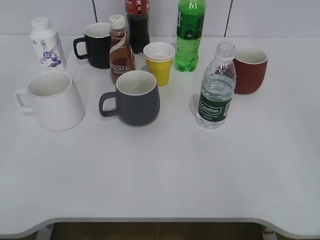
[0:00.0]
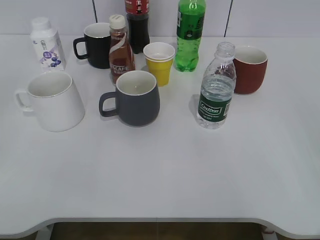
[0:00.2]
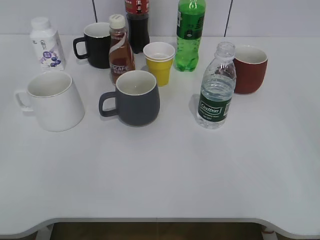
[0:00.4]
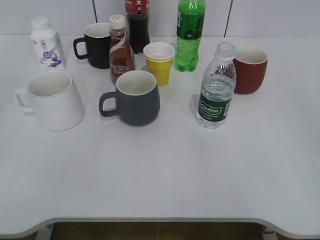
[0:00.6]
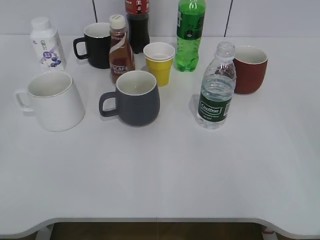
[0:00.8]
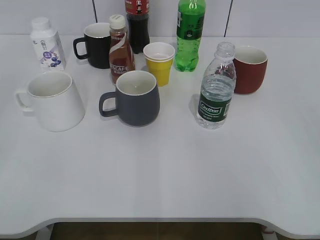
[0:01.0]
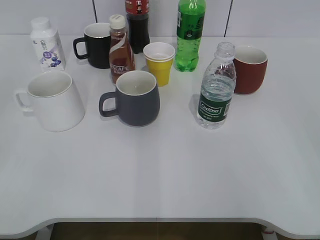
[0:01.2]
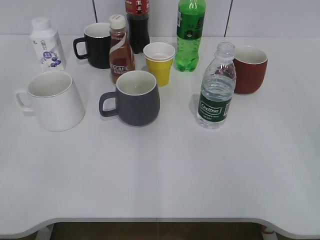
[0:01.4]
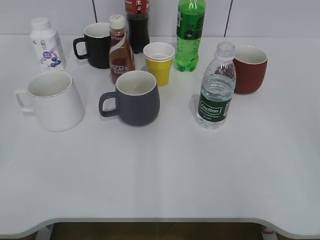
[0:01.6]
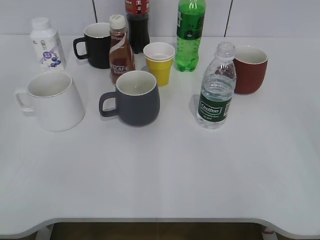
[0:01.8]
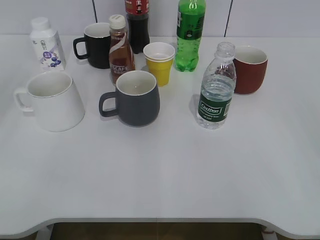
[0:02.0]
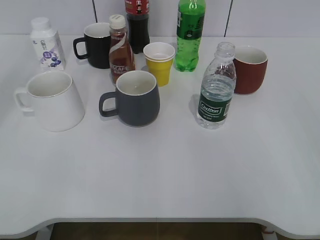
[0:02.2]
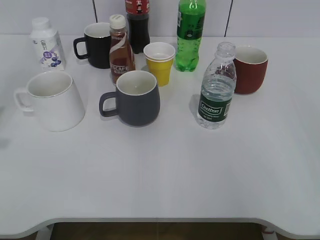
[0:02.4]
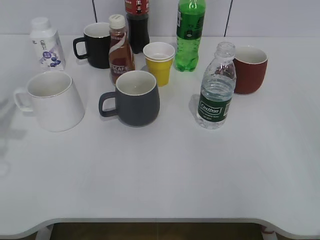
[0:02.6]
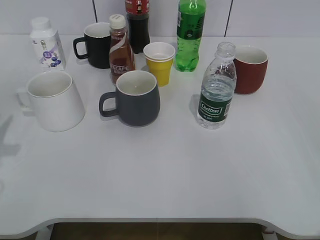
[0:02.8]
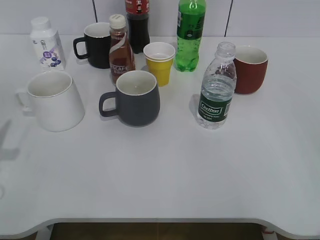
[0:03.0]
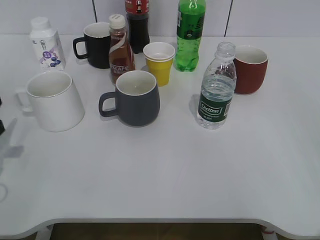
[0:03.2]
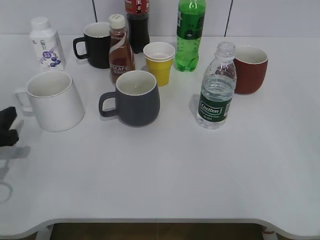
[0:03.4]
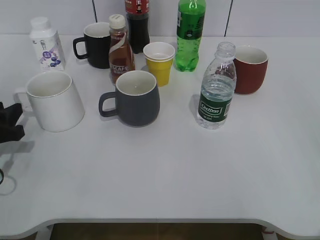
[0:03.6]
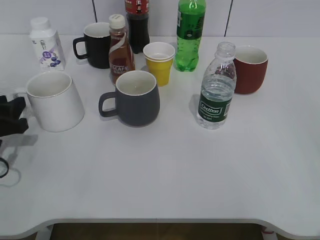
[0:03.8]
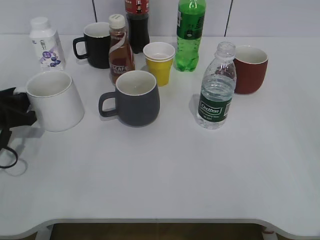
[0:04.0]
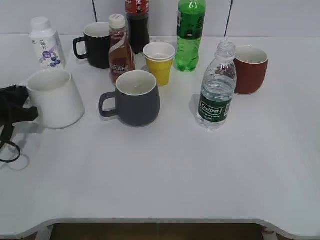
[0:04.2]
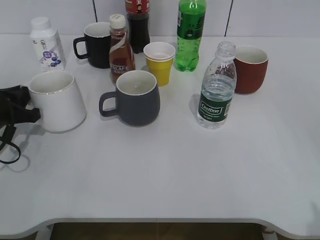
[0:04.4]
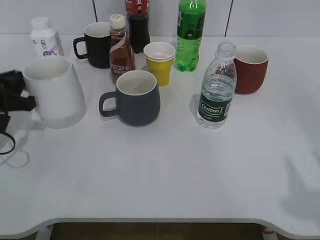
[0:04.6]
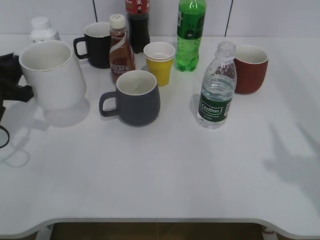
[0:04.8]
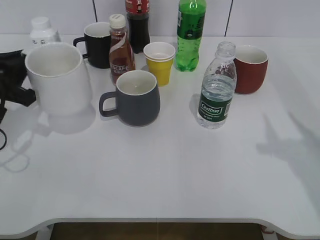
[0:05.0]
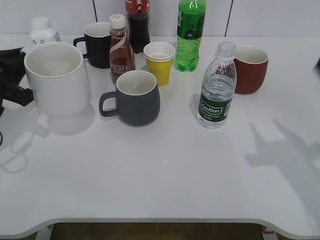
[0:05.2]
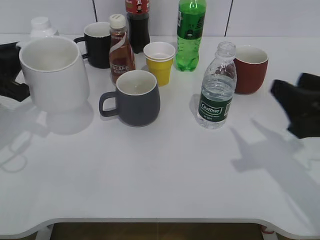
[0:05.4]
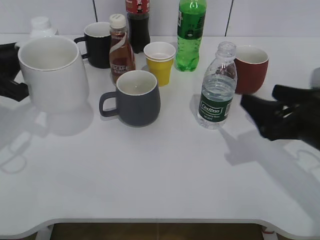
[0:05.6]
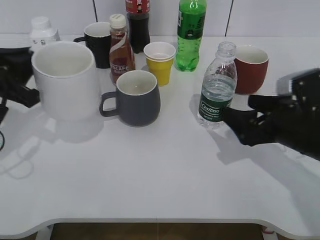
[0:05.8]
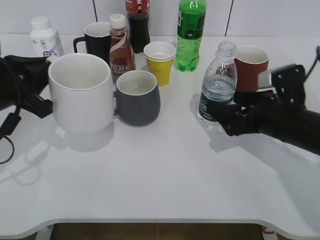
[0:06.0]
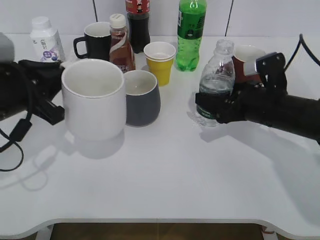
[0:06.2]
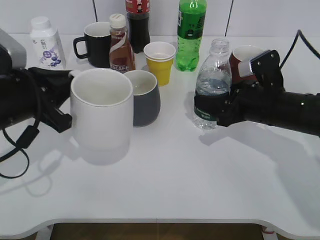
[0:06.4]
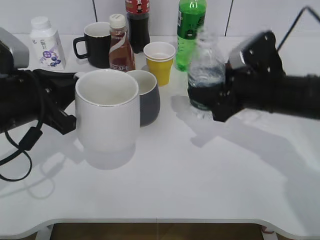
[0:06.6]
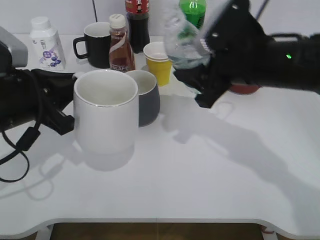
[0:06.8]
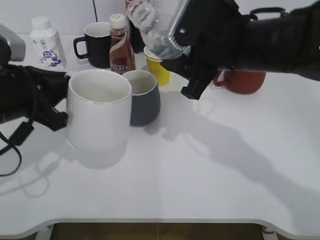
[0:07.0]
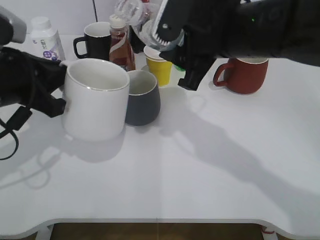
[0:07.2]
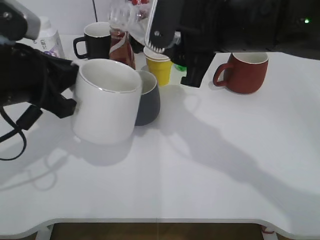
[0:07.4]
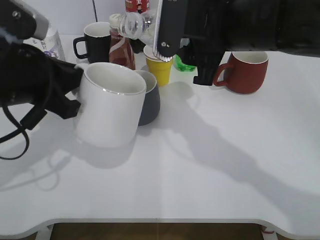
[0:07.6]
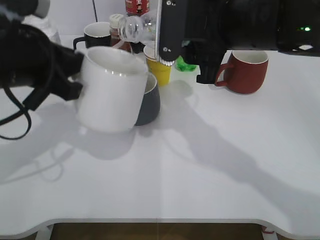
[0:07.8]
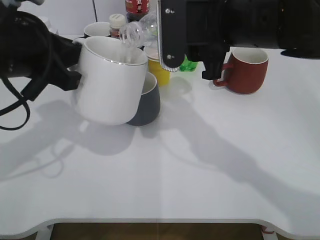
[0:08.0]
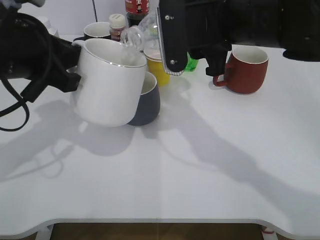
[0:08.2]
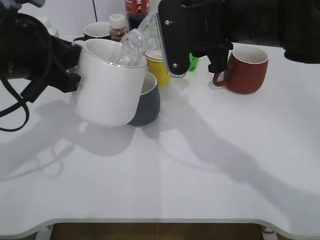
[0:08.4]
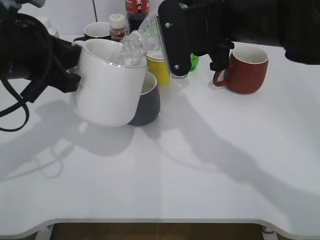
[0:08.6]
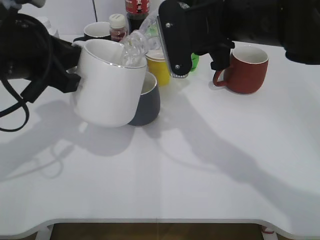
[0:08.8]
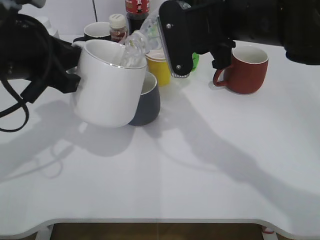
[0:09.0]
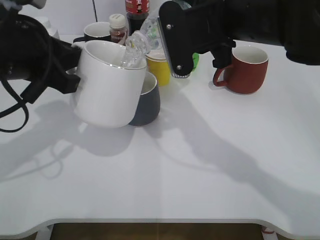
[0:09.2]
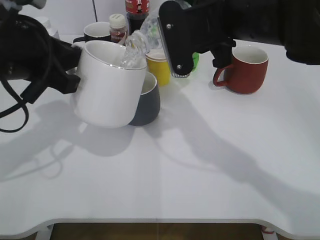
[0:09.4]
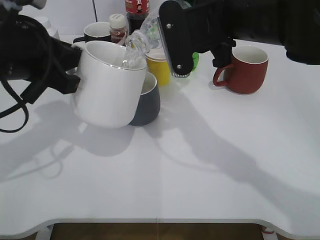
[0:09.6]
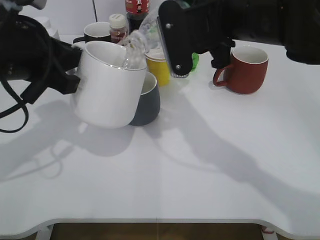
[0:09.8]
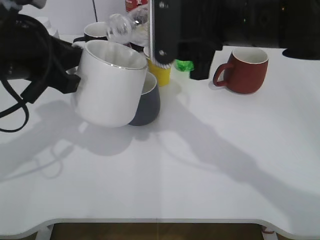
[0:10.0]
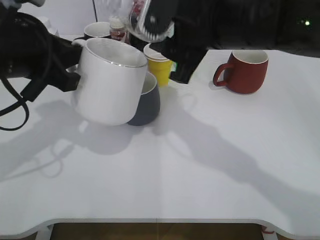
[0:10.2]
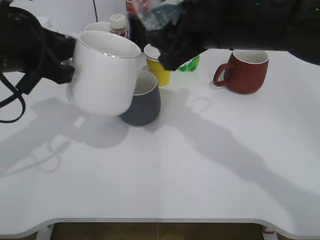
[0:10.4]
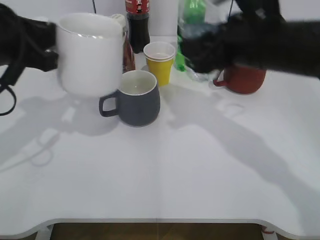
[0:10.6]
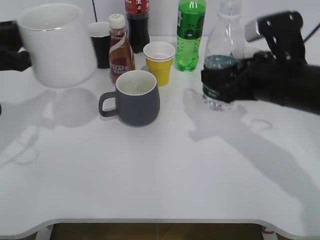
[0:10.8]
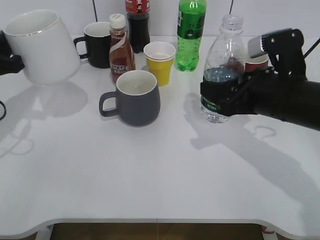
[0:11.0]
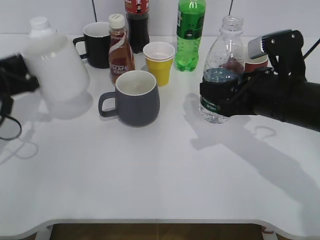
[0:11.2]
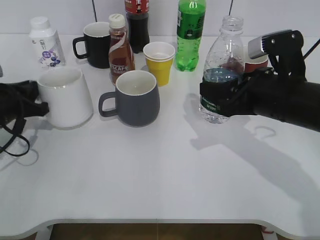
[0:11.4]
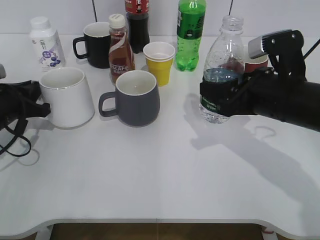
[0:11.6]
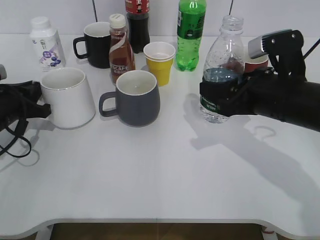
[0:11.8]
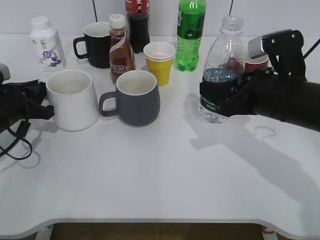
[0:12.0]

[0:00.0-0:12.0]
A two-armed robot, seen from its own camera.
Step, 0:01.8 to 0:04.2: Grasp the white cup with left gripper.
Step, 0:04.4 to 0:04.8: Lift the white cup with left gripper.
Step, 0:05.2 to 0:06.2: Grasp the bottle with water with right gripper.
Step, 0:06.4 to 0:10.0: Pour the water from bottle to cup with right gripper.
0:03.0 to 0:04.4: The left gripper shifts roughly 10 cm forward and downward.
0:04.4 to 0:06.0: The right gripper goes roughly 30 cm forward and downward, and opens its fingers. The left gripper moves upward and to the right, roughly 10 cm.
0:06.0 to 0:07.6: The right gripper heads upward and to the left, covering some 20 cm, and closes up, while the left gripper goes about 5 cm to the right.
0:10.4 to 0:12.0: The left gripper moves downward and to the left, roughly 20 cm. The right gripper travels to the right and downward by approximately 15 cm.

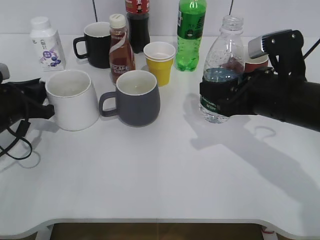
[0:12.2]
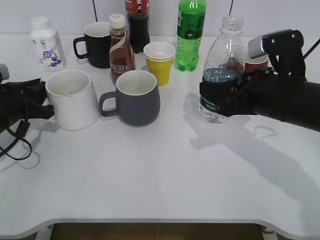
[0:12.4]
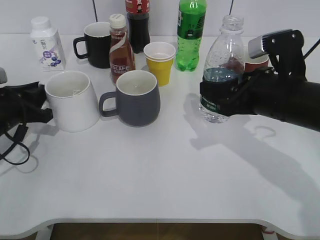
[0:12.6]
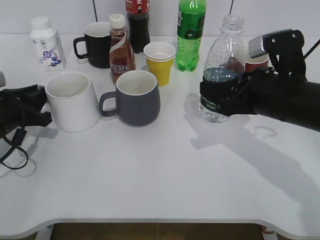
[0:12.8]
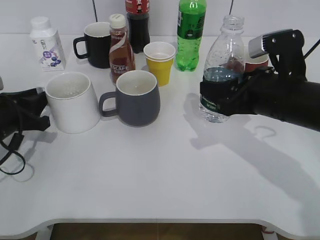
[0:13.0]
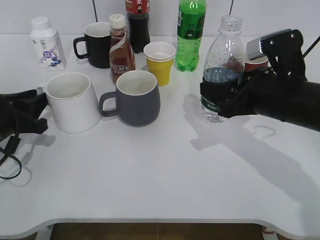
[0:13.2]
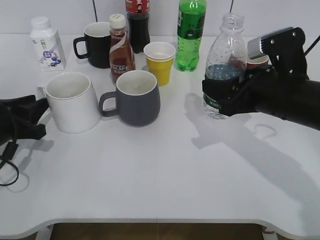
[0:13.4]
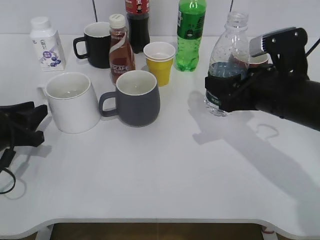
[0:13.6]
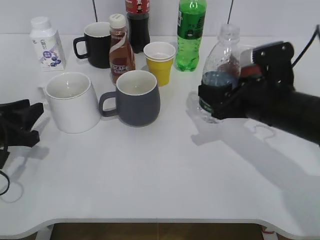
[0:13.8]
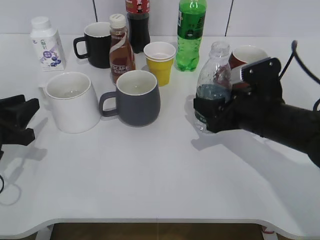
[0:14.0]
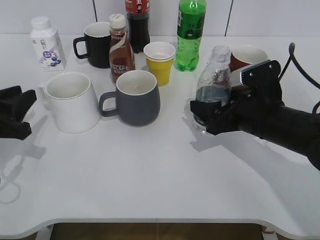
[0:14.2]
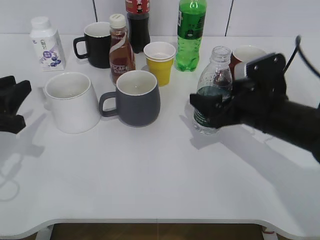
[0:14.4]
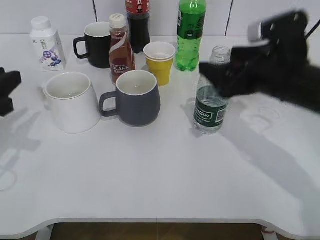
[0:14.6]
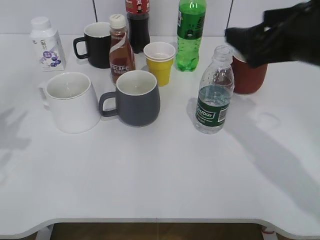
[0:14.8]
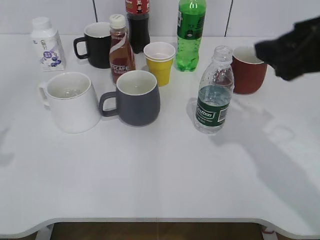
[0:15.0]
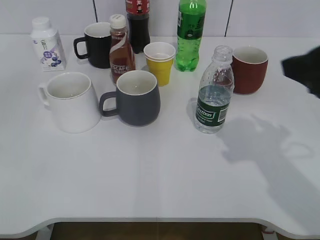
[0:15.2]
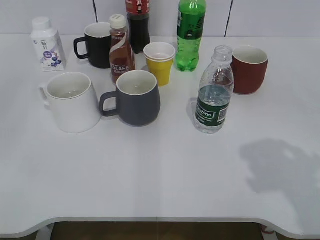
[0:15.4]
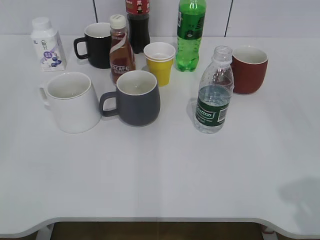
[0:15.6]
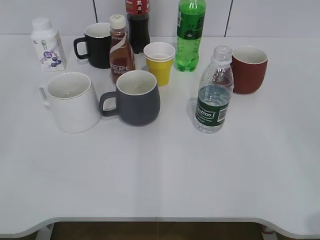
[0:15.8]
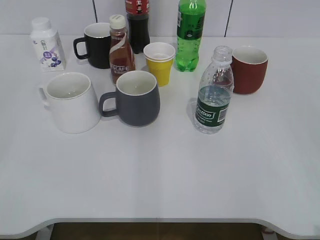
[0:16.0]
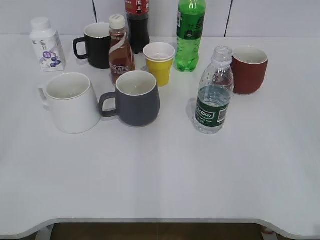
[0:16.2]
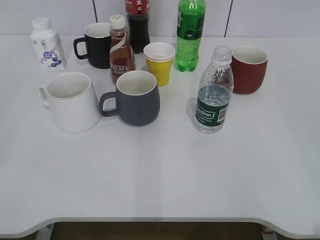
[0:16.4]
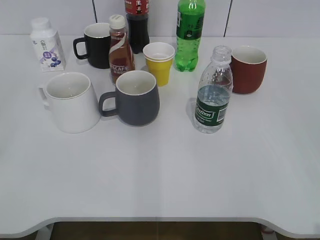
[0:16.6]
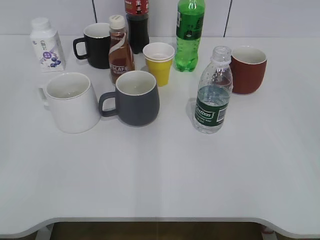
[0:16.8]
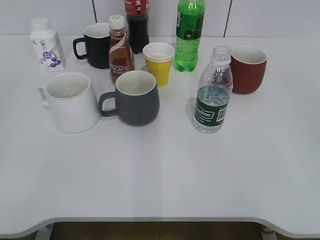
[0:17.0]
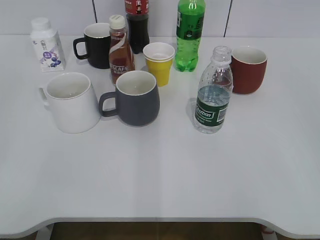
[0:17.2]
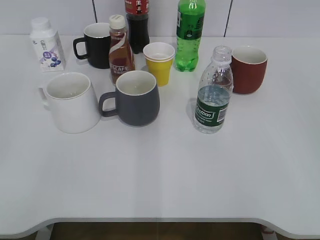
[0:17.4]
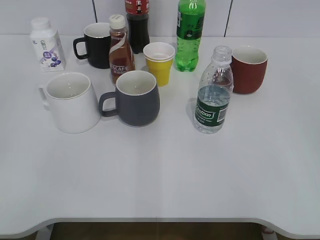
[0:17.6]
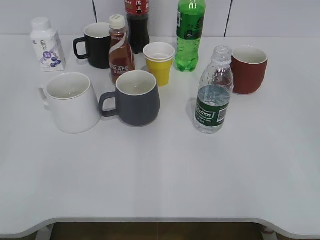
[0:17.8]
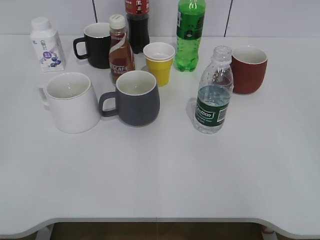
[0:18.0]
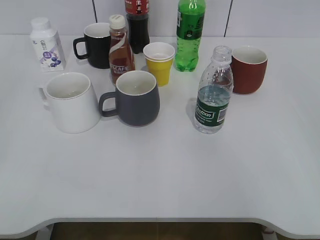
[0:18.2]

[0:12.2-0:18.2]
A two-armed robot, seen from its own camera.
Step, 0:13.2 to 0:14.4: Place the water bottle on the table with right gripper.
0:12.2 to 0:13.8: The left gripper travels backward by approximately 5 cm.
0:13.8 to 0:15.2: Both grippers move upward and backward, some 20 cm. The right gripper opens its fingers, while the left gripper opens.
0:15.2 to 0:16.6: The left gripper is displaced backward by roughly 10 cm. Meanwhile the right gripper is displaced backward and to the right by some 20 cm.

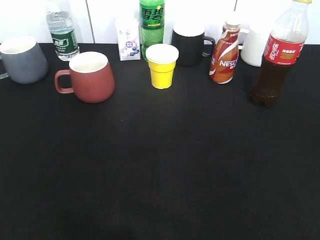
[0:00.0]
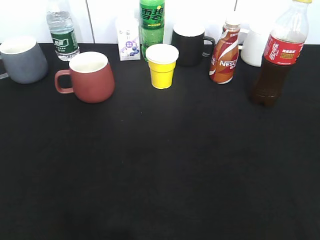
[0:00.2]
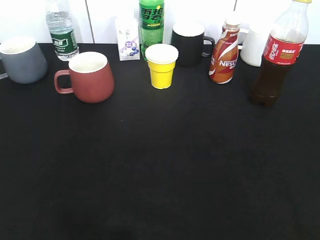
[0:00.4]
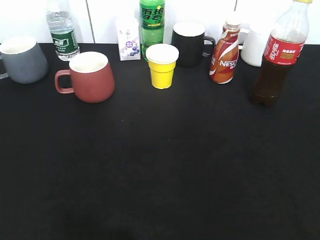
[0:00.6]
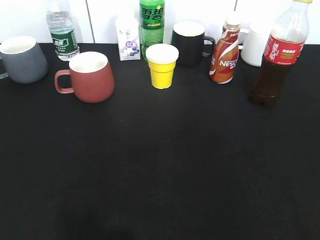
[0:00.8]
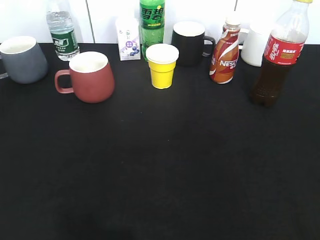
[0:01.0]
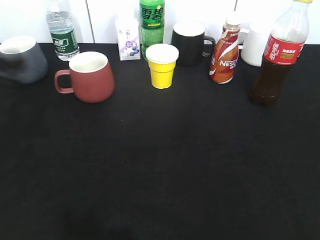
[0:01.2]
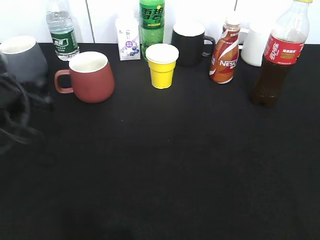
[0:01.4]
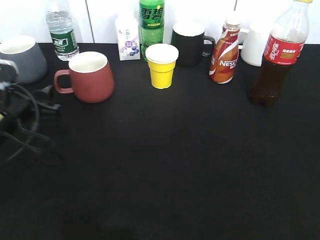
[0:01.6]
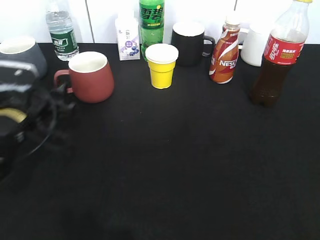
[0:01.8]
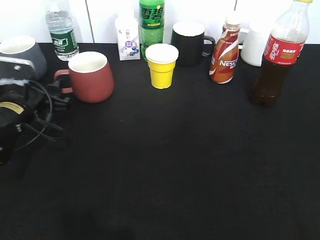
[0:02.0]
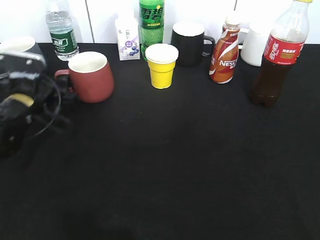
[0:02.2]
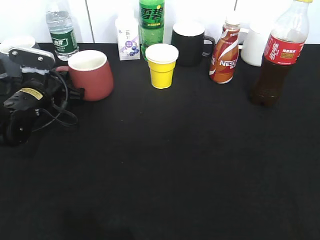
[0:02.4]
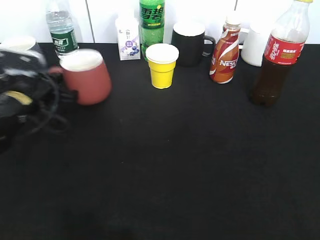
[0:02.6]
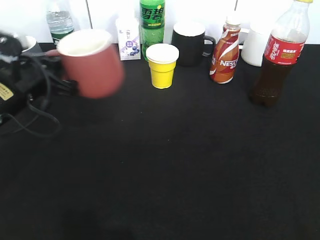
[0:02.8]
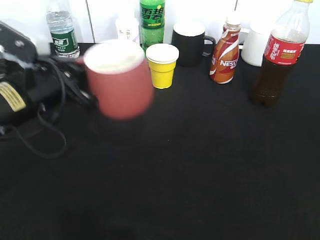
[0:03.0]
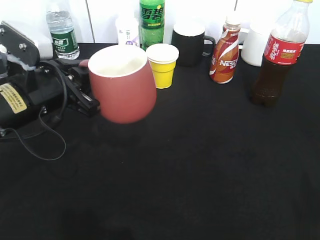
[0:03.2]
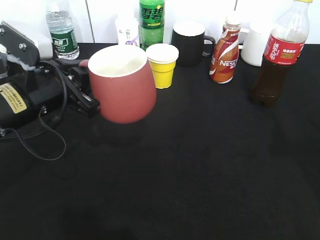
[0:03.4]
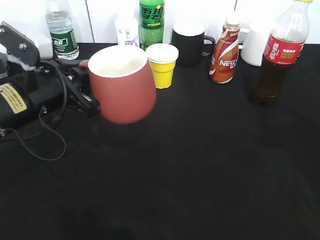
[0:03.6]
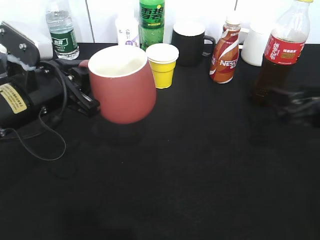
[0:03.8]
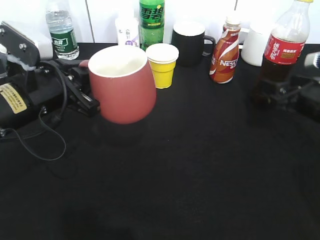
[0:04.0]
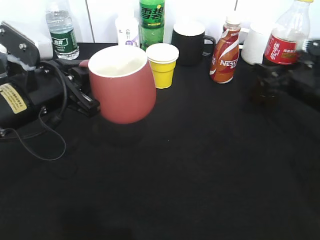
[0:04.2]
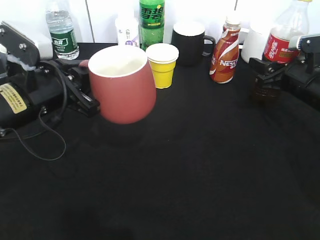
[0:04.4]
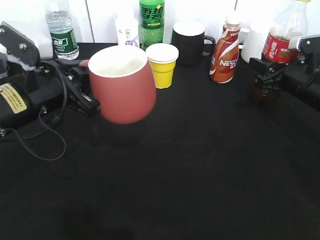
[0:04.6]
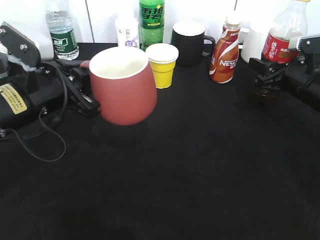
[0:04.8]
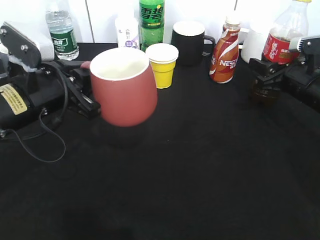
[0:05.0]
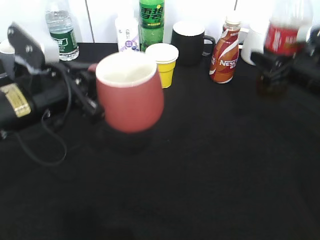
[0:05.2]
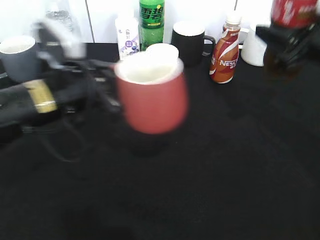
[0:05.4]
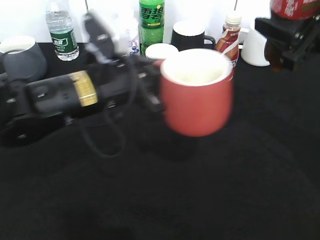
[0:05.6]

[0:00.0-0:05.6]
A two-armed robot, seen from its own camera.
Step, 0:00.0 to 0:02.4: Grasp the red cup with left gripper.
Step, 0:02.6 to 0:03.0: Lift the red cup with left gripper.
Step, 0:03.4 to 0:04.4: Grasp the bottle with cola with right gripper.
0:00.0 to 0:01.4: The left gripper is displaced forward and downward by approximately 30 cm, and opens.
0:01.4 to 0:02.8: The left gripper reaches some 10 cm forward, then returns, and closes up.
0:02.8 to 0:04.2: The right gripper heads forward, covering some 35 cm, and opens.
0:04.2 to 0:05.6: The right gripper is displaced upward and backward by approximately 15 cm, and closes; the left gripper heads to the right, covering some 10 cm.
